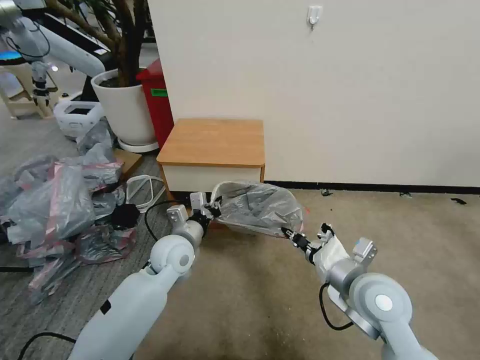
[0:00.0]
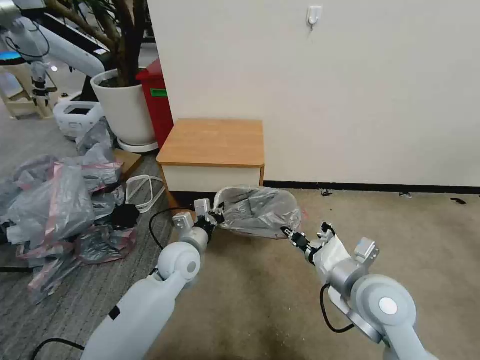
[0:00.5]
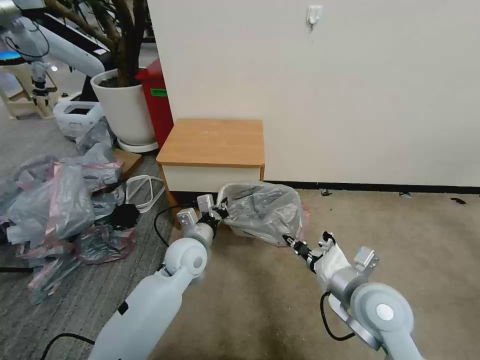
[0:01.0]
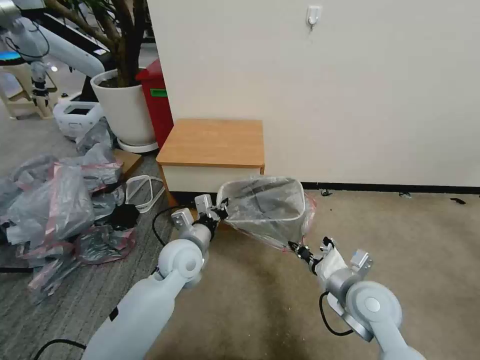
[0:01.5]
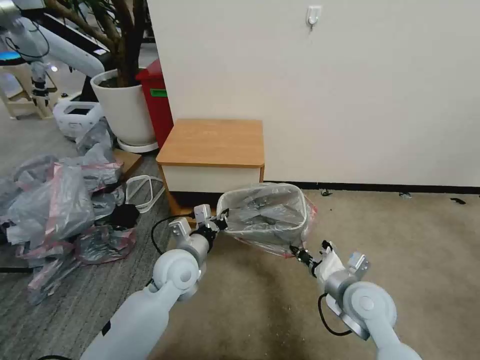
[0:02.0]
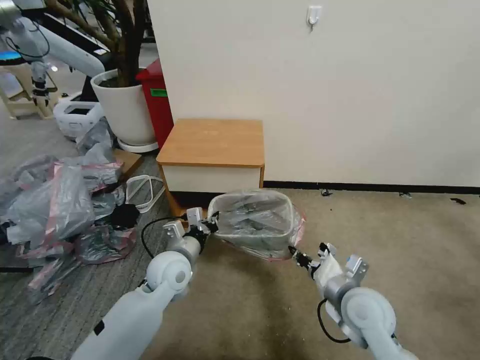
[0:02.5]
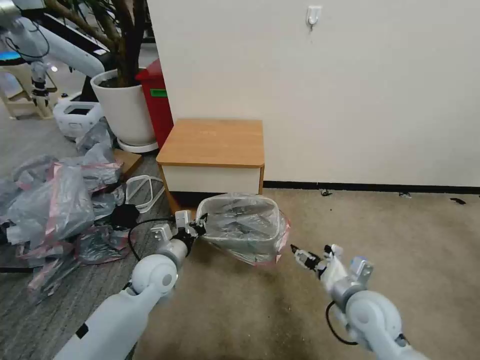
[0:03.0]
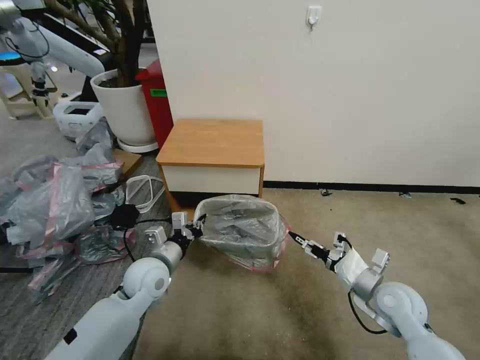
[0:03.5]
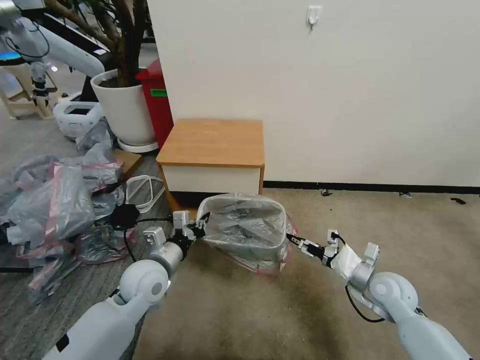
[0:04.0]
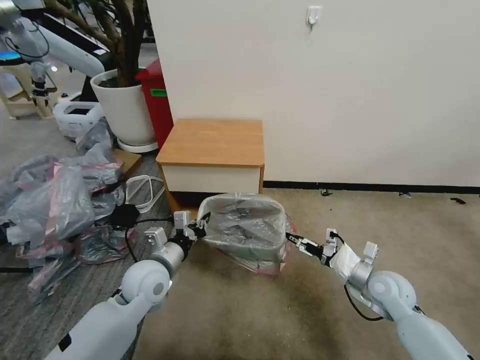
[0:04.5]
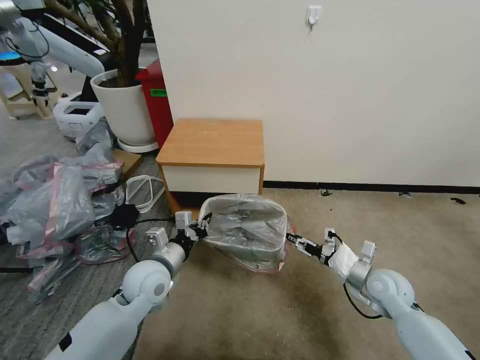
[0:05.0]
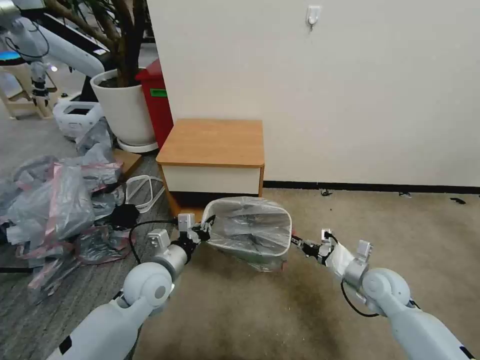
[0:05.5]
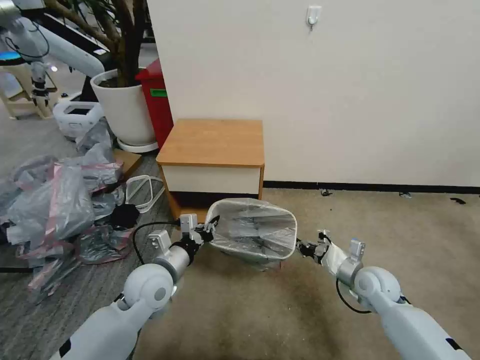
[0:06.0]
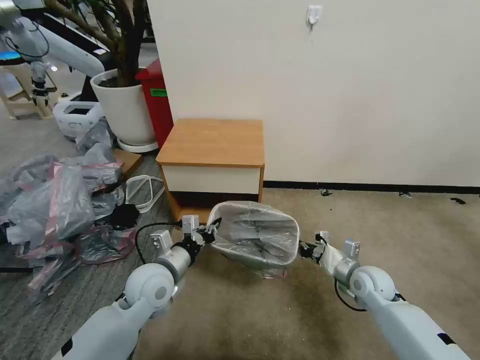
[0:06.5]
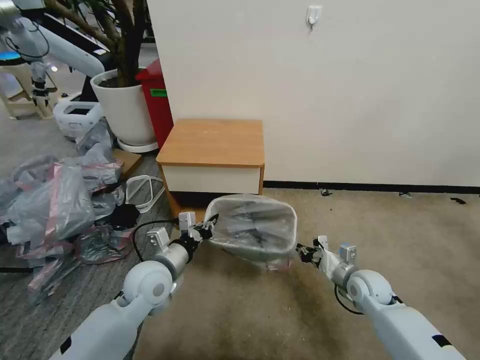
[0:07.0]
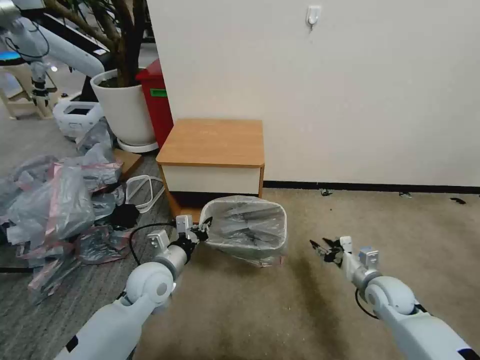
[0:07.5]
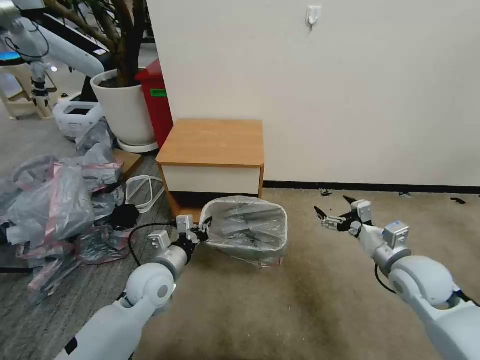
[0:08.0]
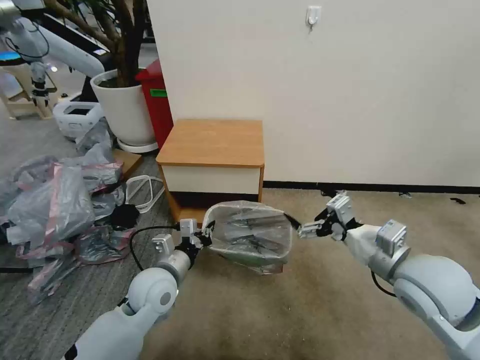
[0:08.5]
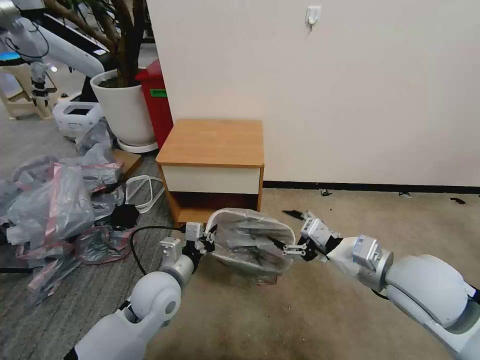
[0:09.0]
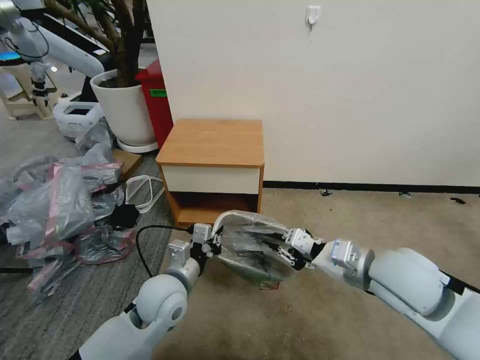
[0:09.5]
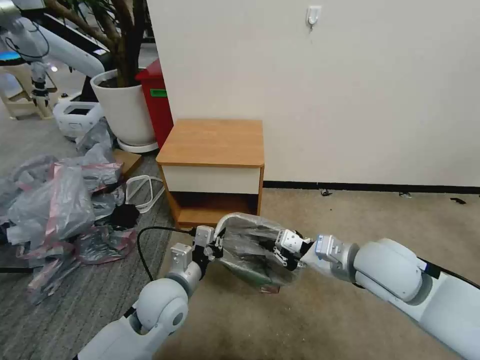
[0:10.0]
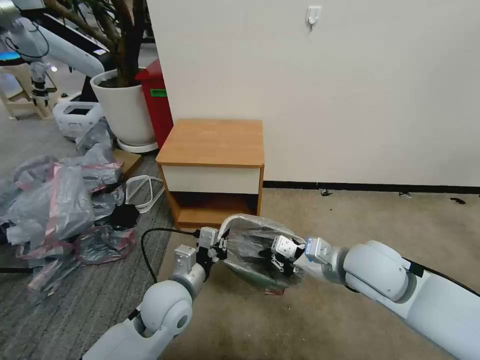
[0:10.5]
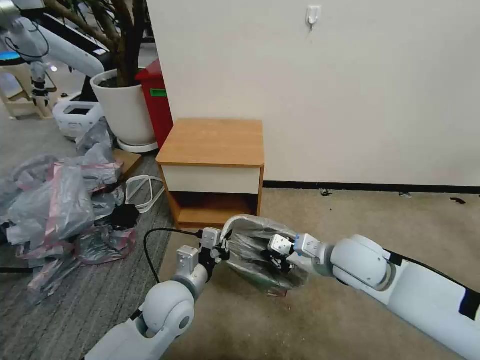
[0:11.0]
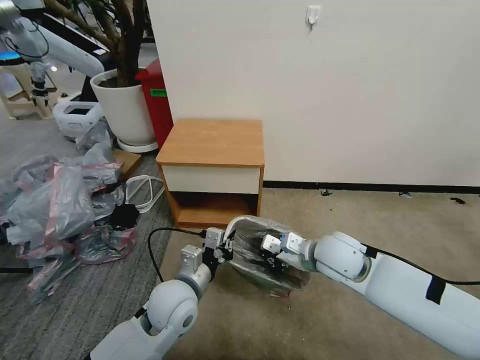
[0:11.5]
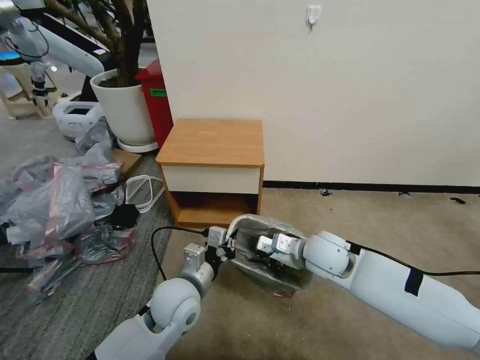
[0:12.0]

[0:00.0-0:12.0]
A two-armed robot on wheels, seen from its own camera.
Task of the whole recording: Pick up the garbage bag from the table and place it over the trash can.
0:00.0 to 0:02.0: The right gripper shifts about 5 cm downward.
0:02.0 to 0:04.0: The right gripper travels to the right and downward by roughly 10 cm, and opens its fingers. Meanwhile the left gripper travels to the left by some 5 cm.
0:04.0 to 0:06.0: The right gripper closes up.
0:06.0 to 0:08.0: The right gripper is displaced upward by roughly 10 cm, and opens its fingers.
0:08.0 to 0:10.0: The left gripper shifts by some 5 cm. Meanwhile the right gripper goes some 15 cm to the left and upward, and closes up.
0:10.0 to 0:12.0: The right gripper is displaced downward, forward and to the left by about 15 cm.

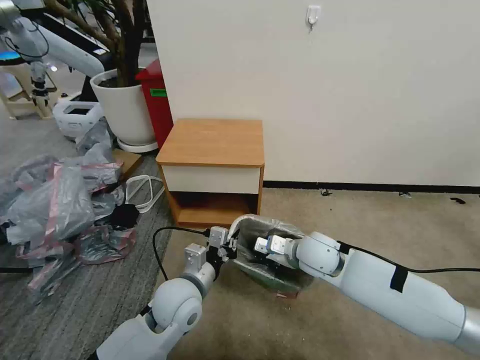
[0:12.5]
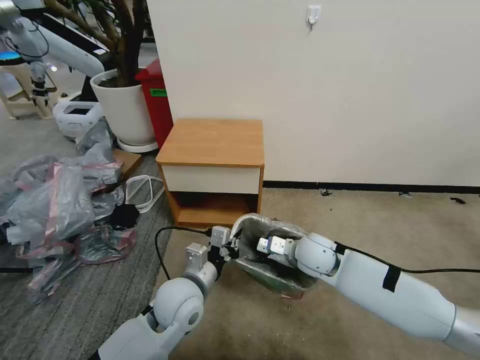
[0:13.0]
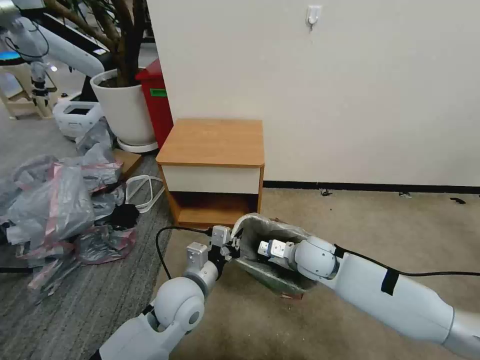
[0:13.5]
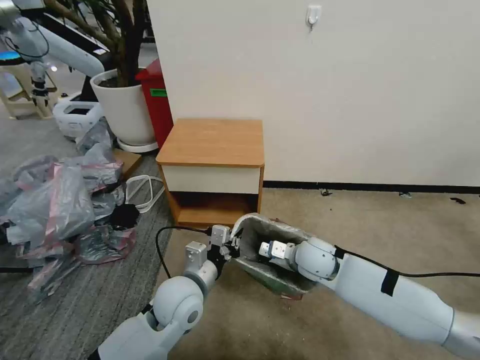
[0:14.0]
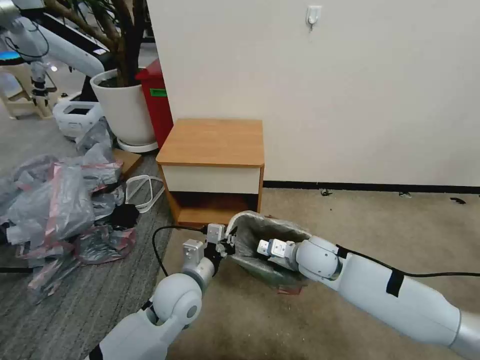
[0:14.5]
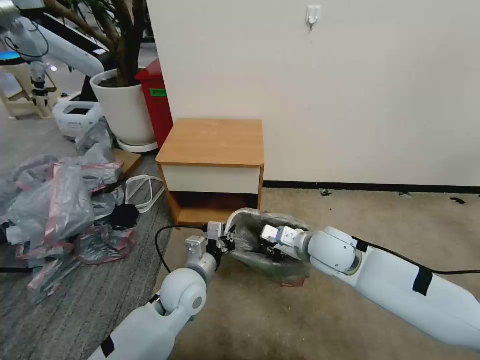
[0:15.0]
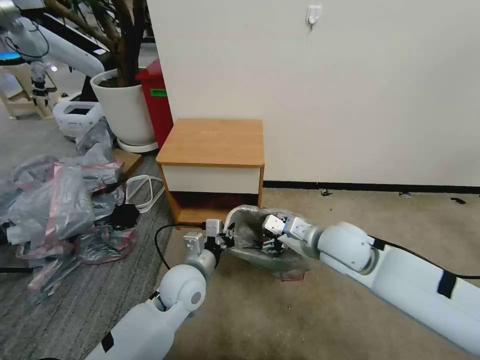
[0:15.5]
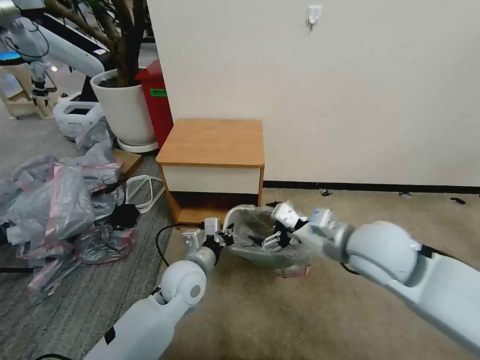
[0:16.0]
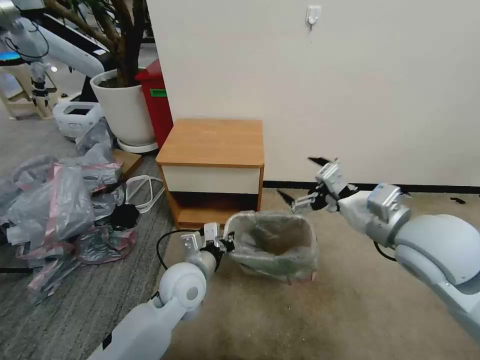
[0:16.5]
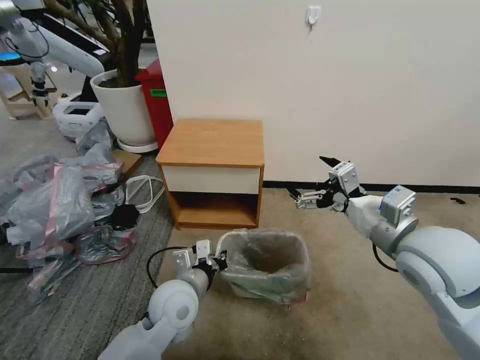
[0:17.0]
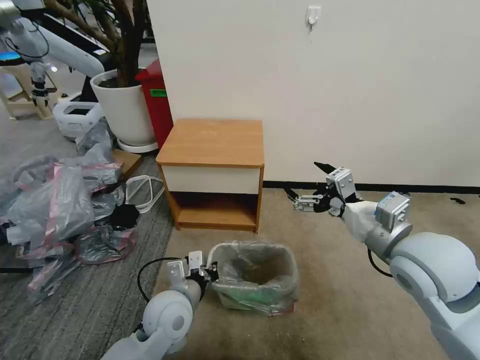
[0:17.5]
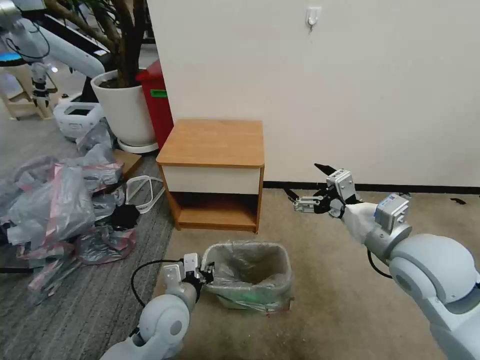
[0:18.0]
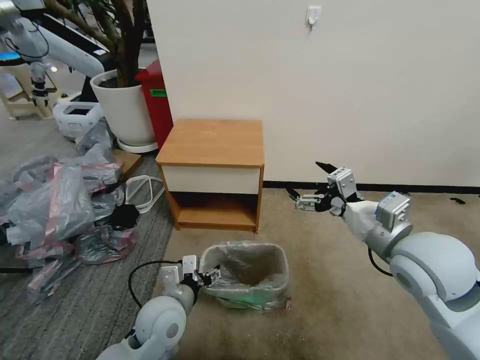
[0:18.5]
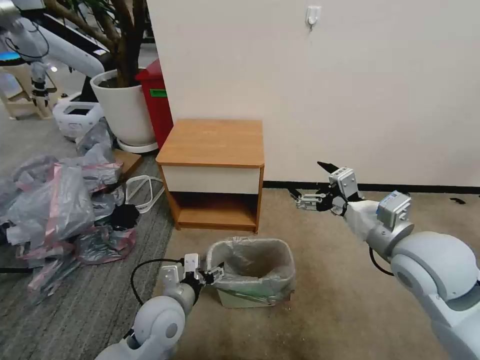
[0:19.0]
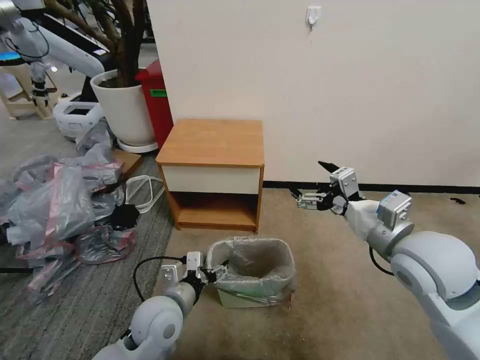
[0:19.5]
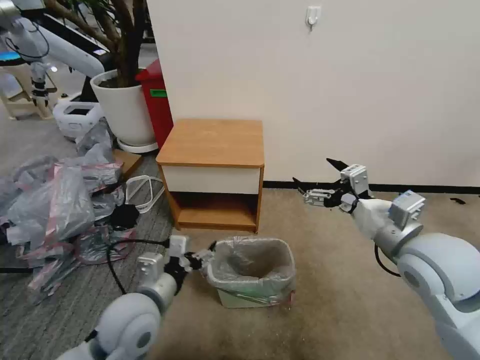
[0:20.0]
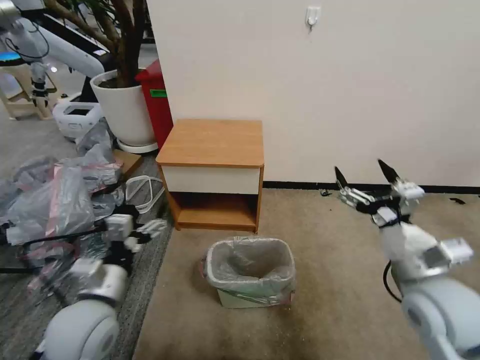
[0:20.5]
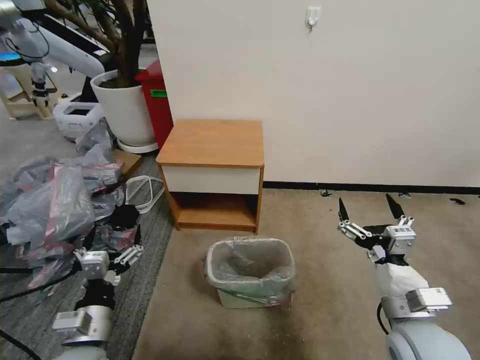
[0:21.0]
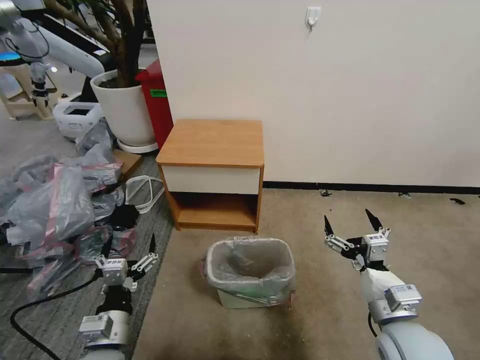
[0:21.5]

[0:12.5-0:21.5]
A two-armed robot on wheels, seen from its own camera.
Task of the whole recording: Pick up the garbage bag from the table and place it over the trash can.
0:12.5 to 0:14.5: The grippers make only small movements.
0:14.5 to 0:17.0: The right gripper heads upward, to the right and backward, covering about 25 cm, and opens up.
0:17.0 to 0:19.5: The left gripper opens its fingers.
0:19.5 to 0:21.5: The left gripper shifts about 10 cm backward and to the left. Meanwhile the right gripper goes roughly 15 cm downward and backward.
